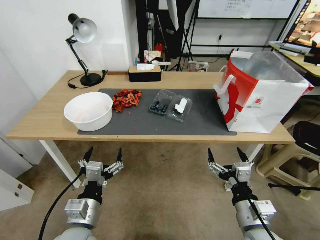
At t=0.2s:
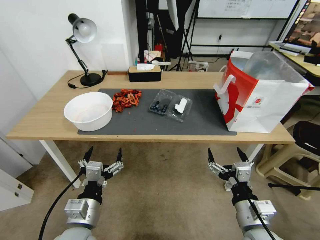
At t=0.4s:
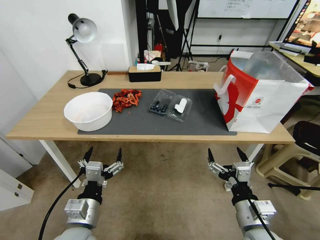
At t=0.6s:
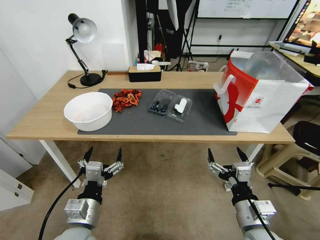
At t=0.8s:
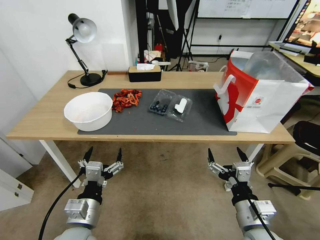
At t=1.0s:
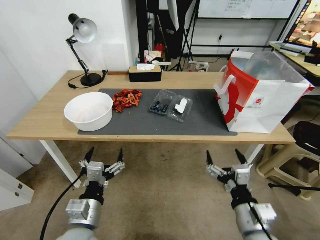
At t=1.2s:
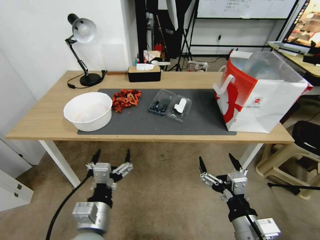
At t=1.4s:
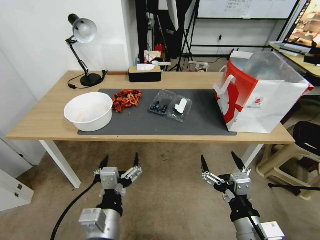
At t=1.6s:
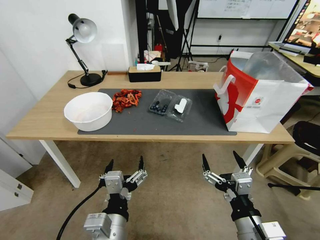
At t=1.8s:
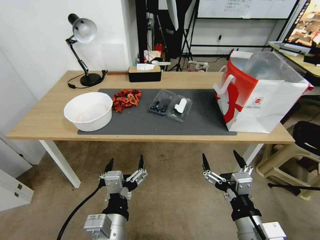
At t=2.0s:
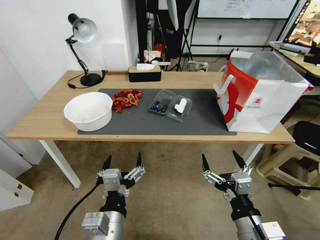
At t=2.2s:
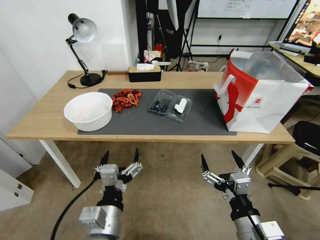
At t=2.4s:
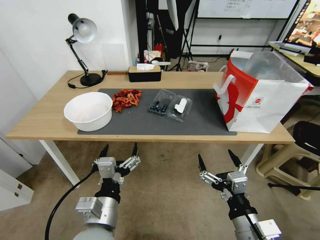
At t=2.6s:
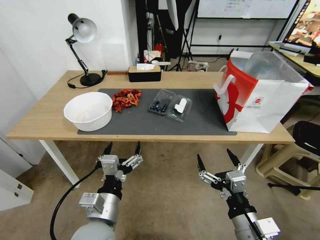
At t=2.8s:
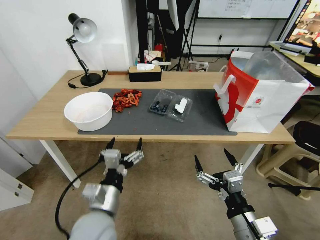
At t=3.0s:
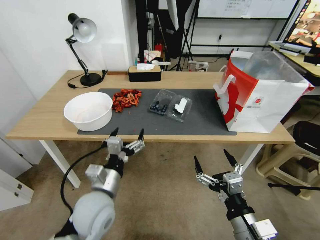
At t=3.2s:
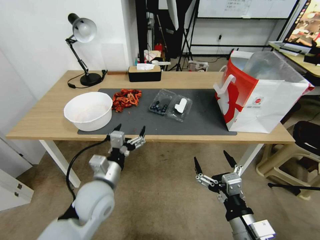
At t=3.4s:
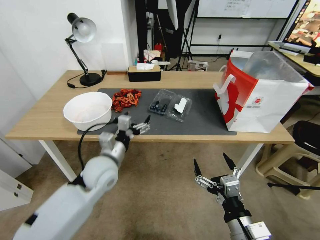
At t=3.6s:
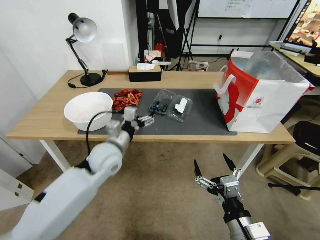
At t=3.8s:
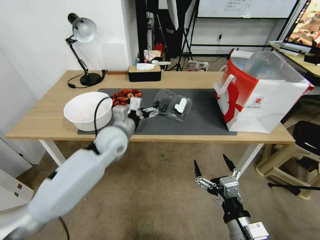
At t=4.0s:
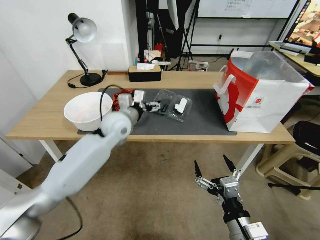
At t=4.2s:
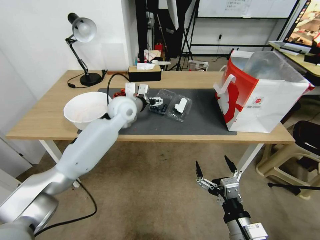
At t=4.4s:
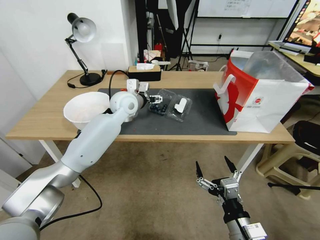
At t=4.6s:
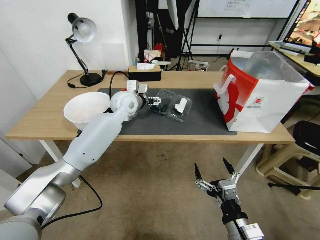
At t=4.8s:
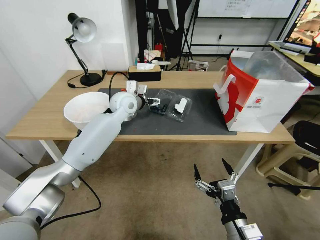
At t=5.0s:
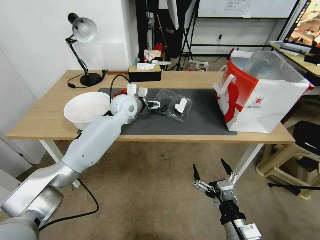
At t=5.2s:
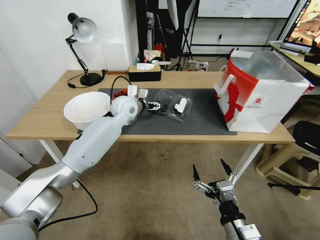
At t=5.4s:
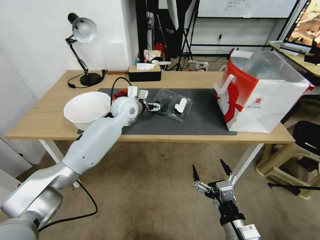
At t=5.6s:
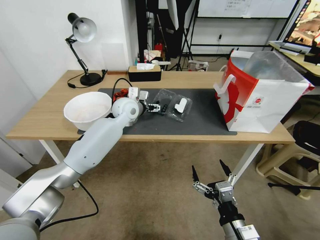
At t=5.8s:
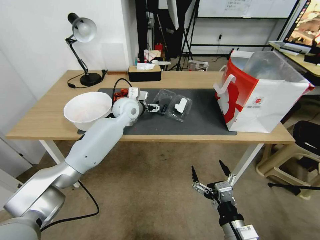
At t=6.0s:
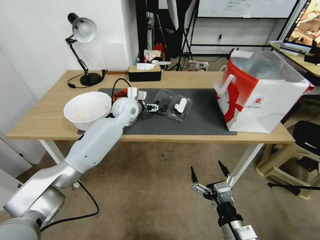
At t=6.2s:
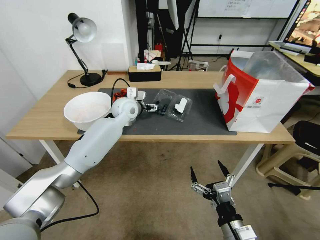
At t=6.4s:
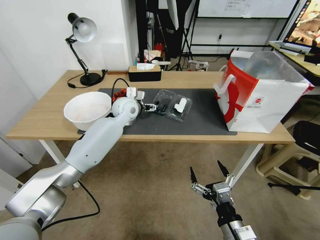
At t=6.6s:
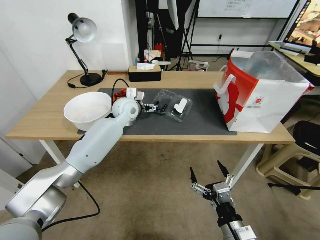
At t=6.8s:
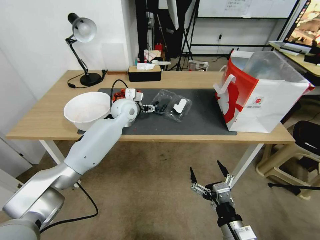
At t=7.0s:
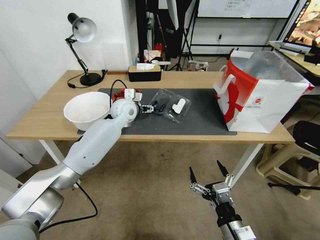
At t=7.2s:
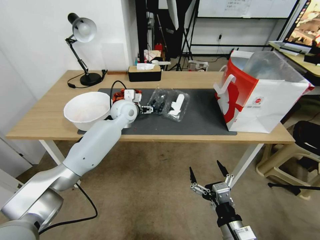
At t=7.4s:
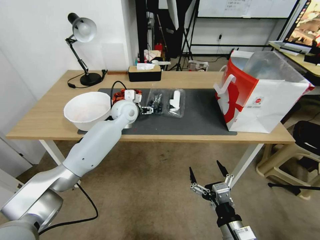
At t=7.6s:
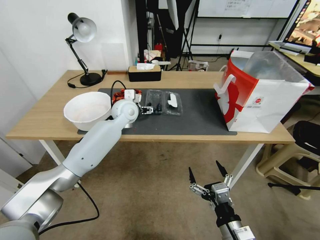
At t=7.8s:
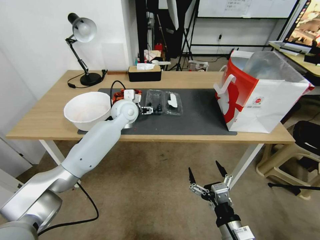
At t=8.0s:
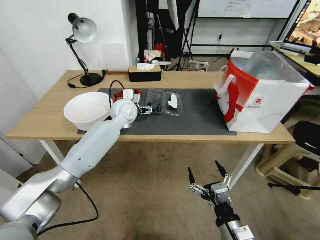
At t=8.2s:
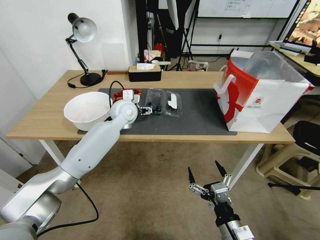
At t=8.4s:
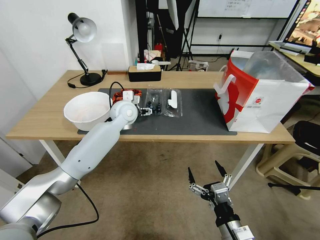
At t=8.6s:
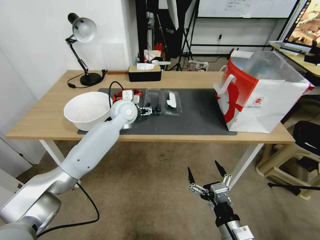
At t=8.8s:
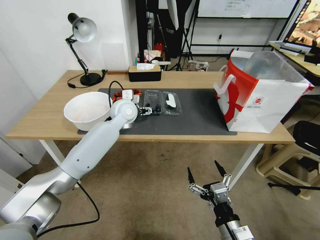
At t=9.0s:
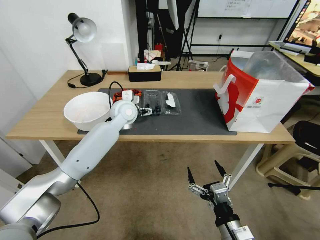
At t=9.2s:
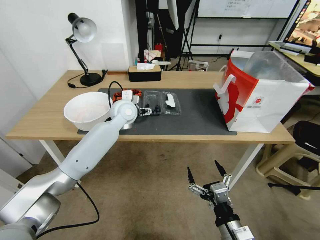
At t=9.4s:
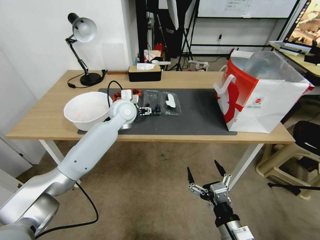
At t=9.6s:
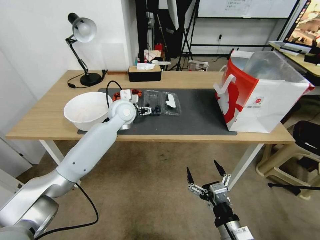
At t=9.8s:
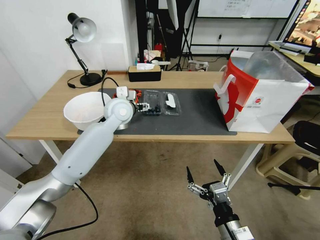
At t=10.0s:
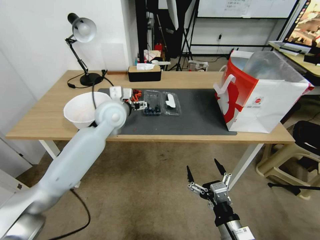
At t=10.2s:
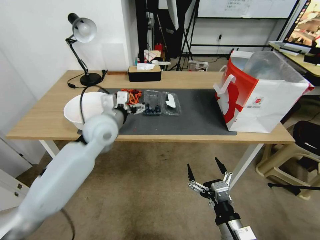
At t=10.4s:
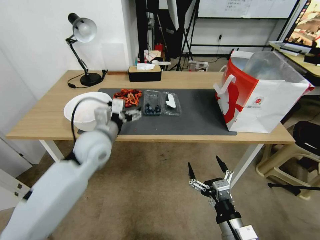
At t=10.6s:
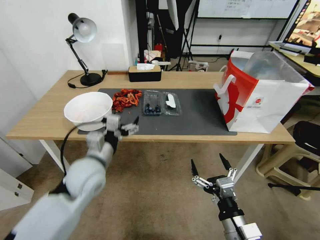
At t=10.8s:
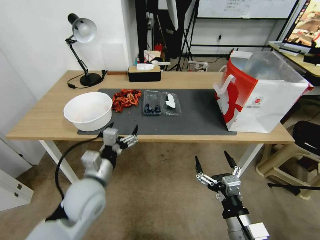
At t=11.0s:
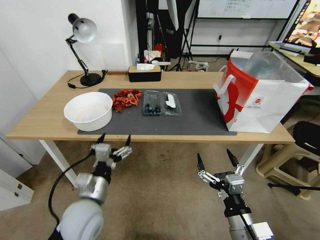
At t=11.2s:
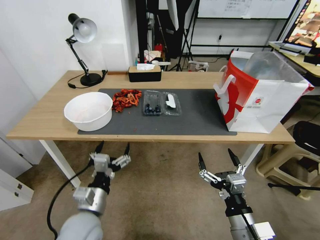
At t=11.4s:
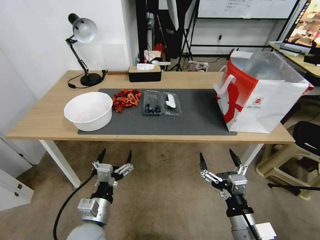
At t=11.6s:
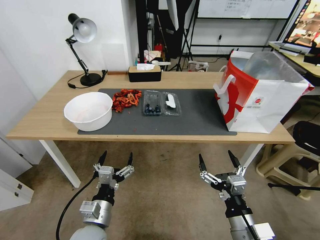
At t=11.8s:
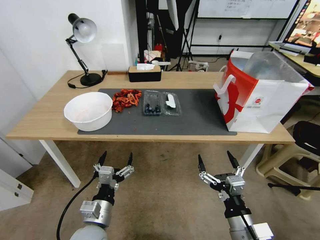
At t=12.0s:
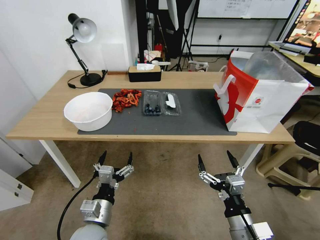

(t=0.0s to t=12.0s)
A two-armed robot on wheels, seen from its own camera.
Task of the whole recording: Close the takeout container lid, then place the container into the takeout bag.
t=1.6s - t=3.0s: The left gripper travels forward and to the left by some 15 cm.
t=3.0s - t=4.4s: The left gripper travels forward by some 30 cm.
t=4.4s - t=9.0s: There are only small adjustments of the grippers.
t=9.0s - t=10.4s: The left gripper moves backward, approximately 15 cm.
t=10.4s - t=12.0s: The left gripper is displaced backward and downward by some 25 cm.

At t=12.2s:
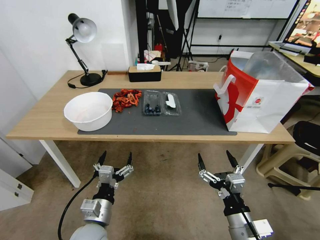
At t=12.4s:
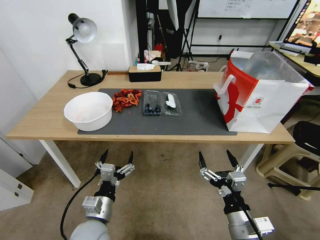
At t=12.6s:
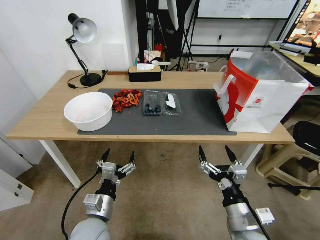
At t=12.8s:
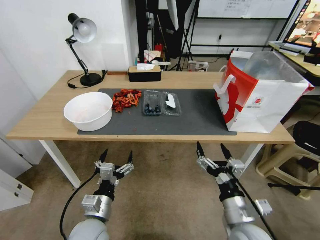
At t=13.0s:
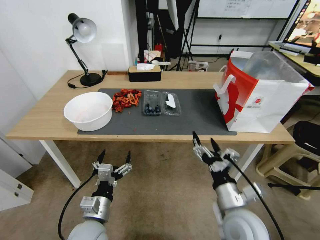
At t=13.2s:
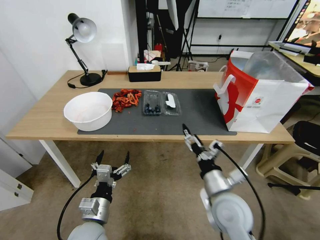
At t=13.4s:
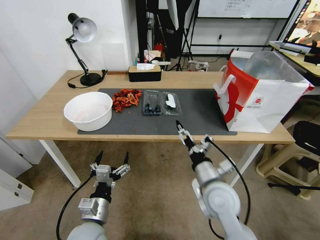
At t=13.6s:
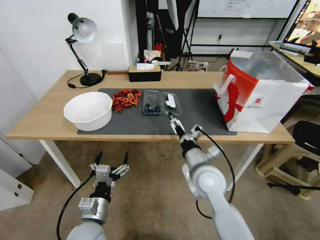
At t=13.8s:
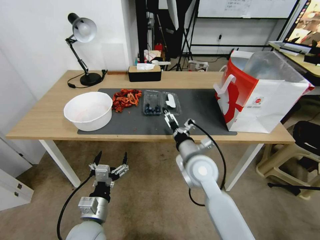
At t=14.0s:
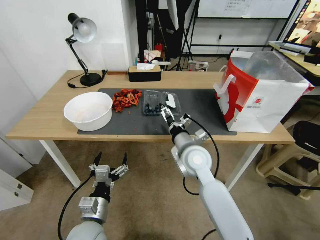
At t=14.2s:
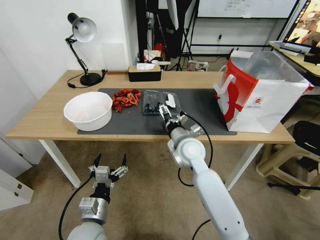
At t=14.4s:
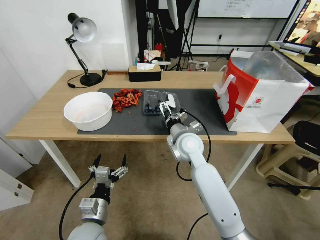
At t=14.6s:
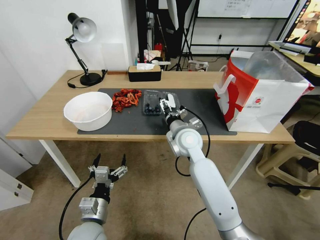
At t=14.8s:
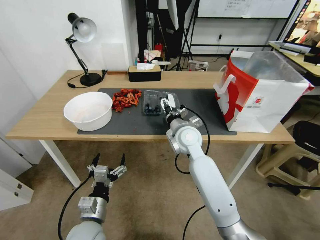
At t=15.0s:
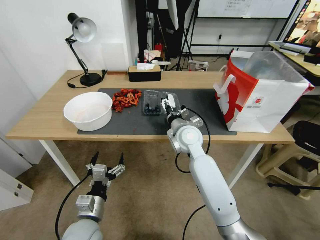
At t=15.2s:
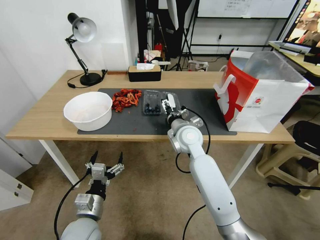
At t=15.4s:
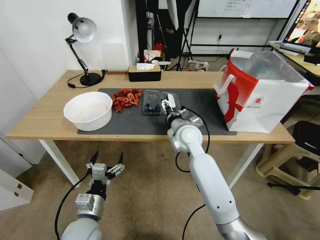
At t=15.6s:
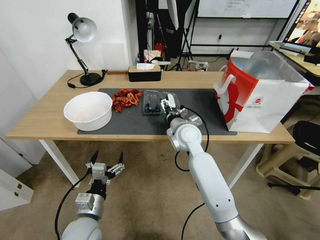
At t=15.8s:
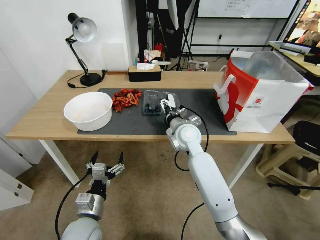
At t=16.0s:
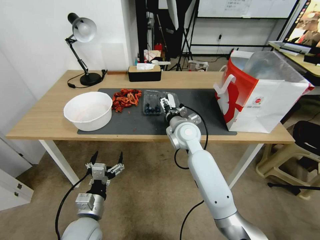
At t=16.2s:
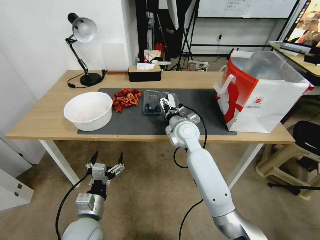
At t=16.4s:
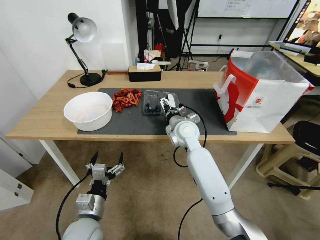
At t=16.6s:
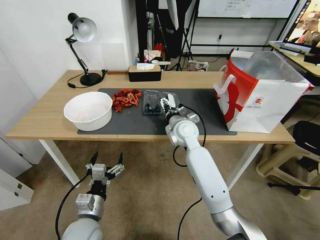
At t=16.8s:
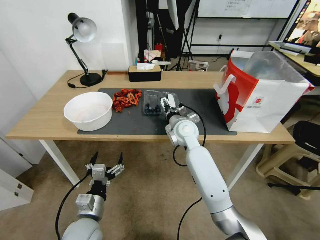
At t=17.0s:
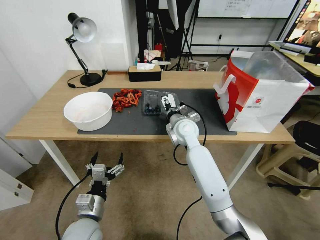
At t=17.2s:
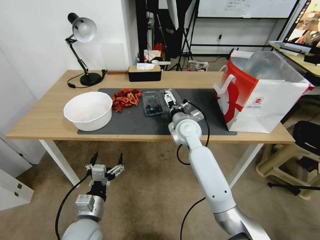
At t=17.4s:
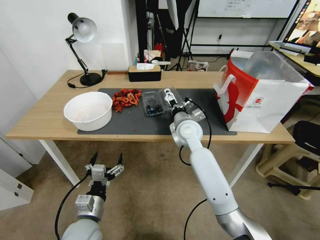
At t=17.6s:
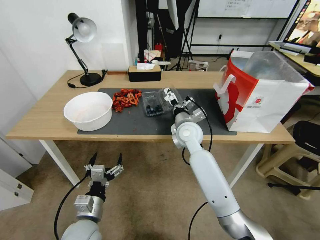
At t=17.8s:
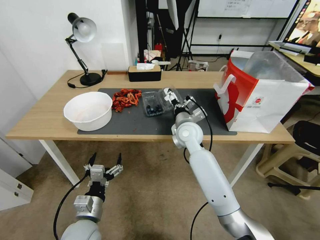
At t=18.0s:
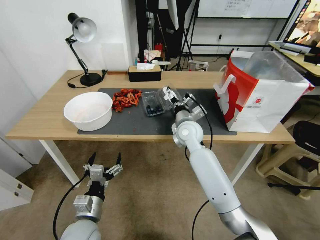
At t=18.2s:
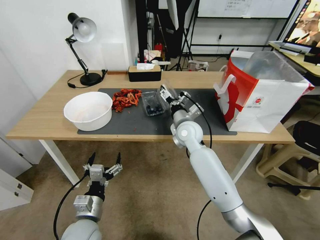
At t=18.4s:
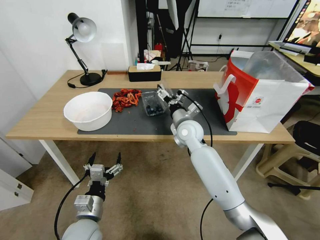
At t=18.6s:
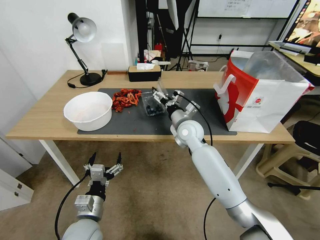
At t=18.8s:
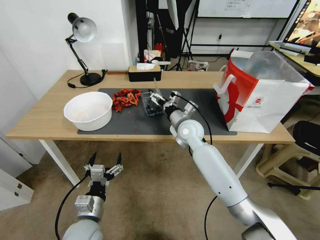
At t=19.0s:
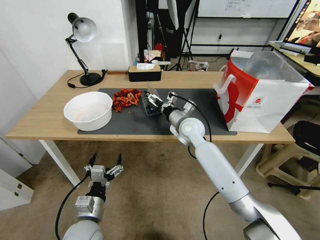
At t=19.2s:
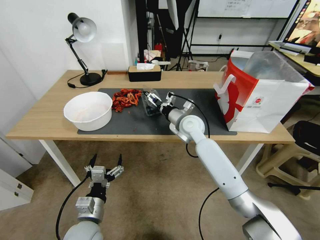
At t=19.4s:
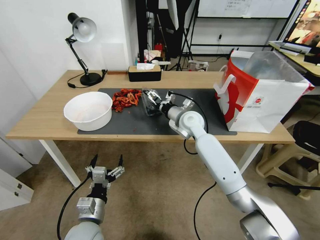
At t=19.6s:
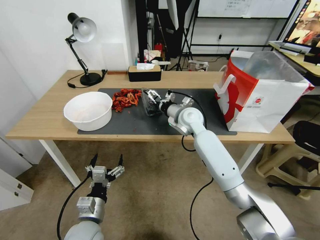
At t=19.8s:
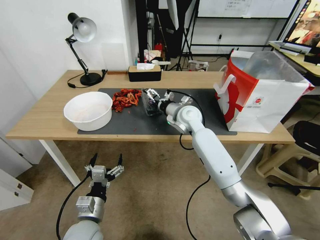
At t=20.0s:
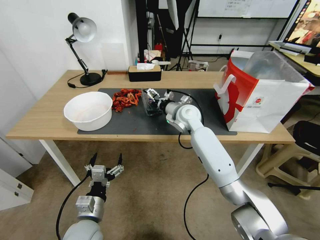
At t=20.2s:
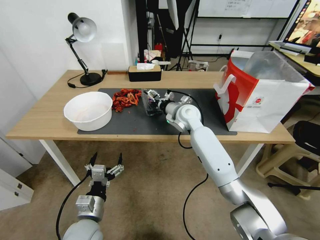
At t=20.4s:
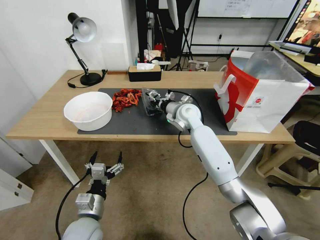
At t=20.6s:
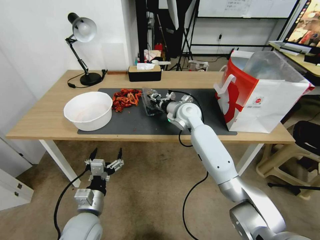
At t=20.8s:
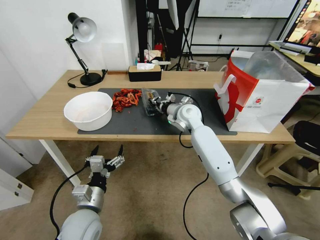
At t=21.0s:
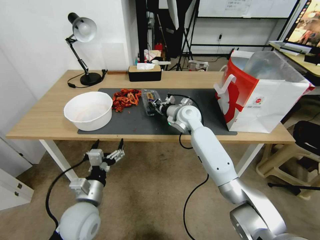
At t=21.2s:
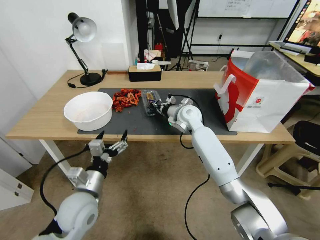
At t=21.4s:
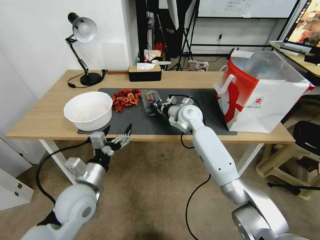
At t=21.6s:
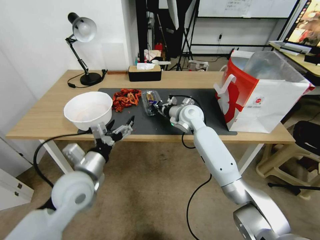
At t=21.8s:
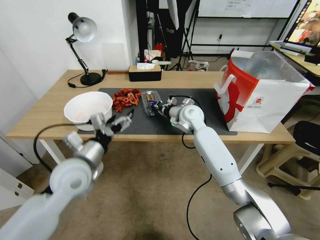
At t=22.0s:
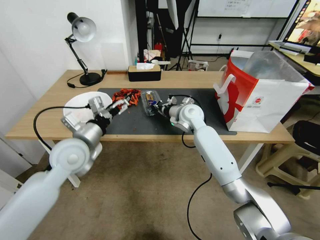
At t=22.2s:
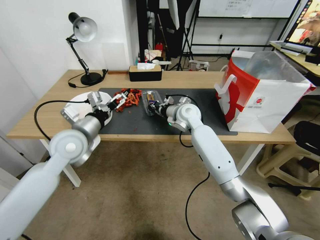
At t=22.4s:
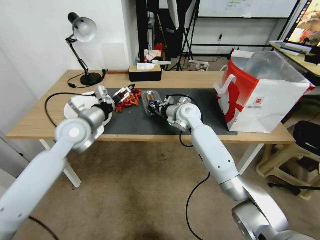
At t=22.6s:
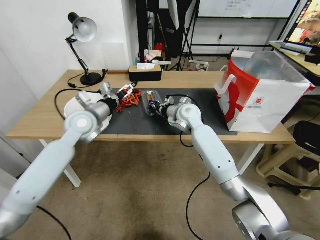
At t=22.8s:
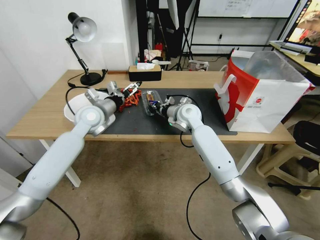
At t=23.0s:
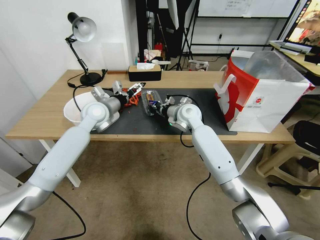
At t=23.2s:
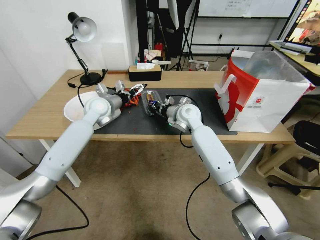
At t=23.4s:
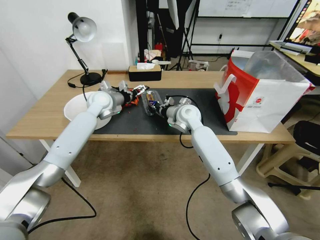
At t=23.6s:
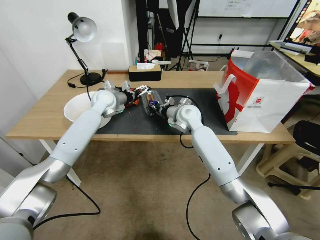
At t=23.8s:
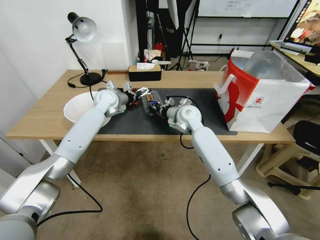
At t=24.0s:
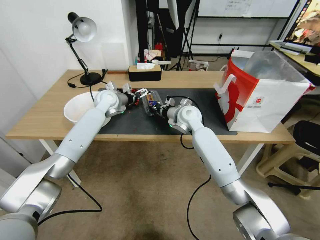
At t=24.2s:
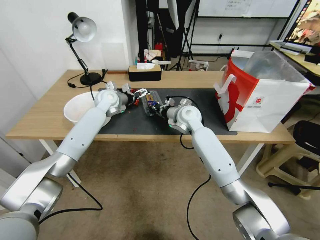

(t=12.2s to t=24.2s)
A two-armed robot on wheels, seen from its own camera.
Task of the whole recording: Close the takeout container lid, then place the container into the takeout bag.
t=12.2s - t=13.8s: The right gripper heads forward and to the left, covering some 20 cm.
t=13.8s - t=15.2s: The right gripper travels forward by approximately 10 cm.
t=15.2s - t=16.6s: There are only small adjustments of the grippers.
t=18.2s - t=19.8s: The right gripper heads forward, covering roughly 5 cm.
t=19.8s - t=21.2s: The left gripper is displaced upward and forward by roughly 10 cm, while the right gripper closes its fingers.
t=21.2s - t=22.6s: The left gripper moves forward and upward, roughly 25 cm.
t=22.6s - t=24.2s: The left gripper shifts about 15 cm forward.
